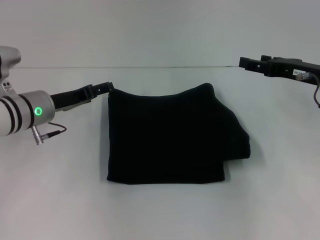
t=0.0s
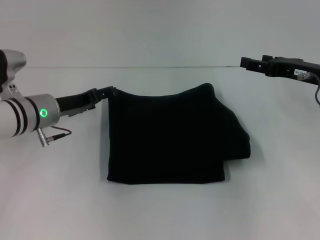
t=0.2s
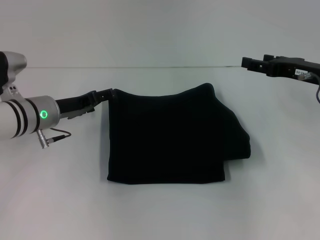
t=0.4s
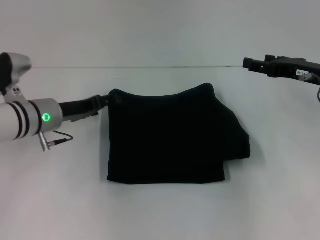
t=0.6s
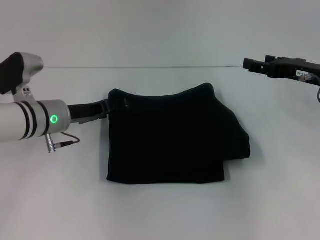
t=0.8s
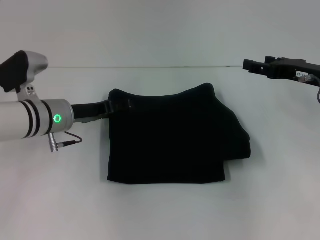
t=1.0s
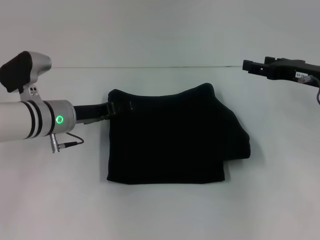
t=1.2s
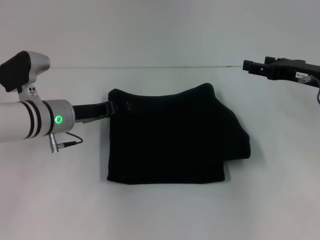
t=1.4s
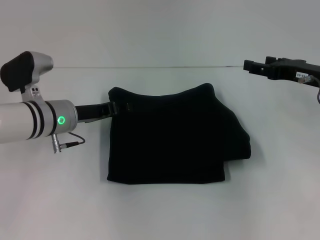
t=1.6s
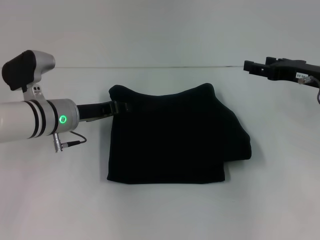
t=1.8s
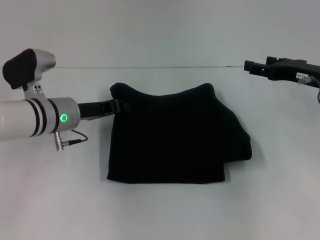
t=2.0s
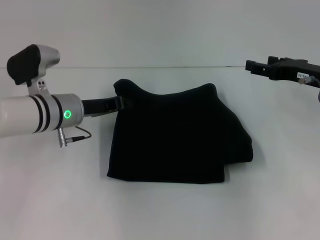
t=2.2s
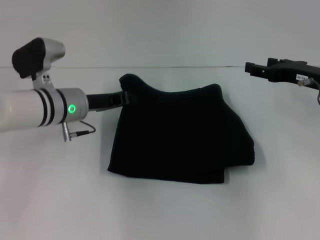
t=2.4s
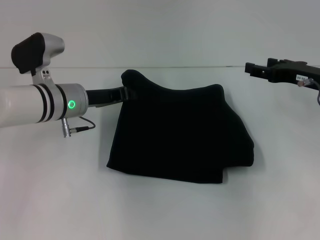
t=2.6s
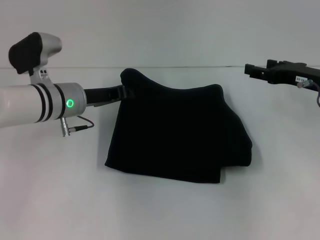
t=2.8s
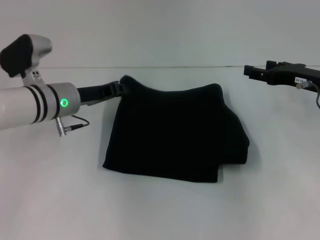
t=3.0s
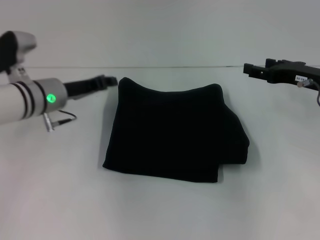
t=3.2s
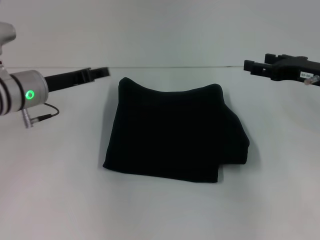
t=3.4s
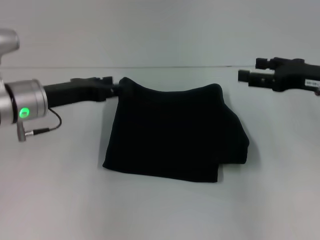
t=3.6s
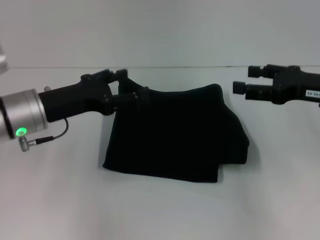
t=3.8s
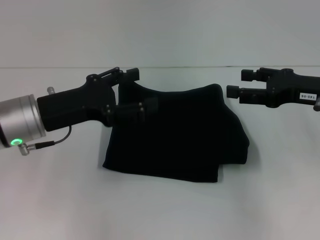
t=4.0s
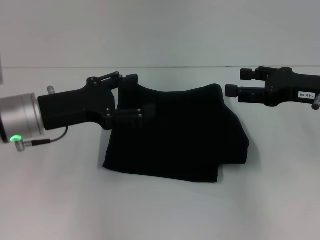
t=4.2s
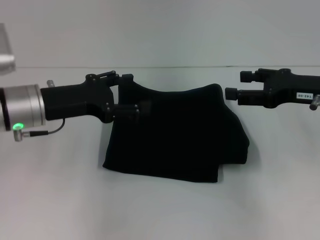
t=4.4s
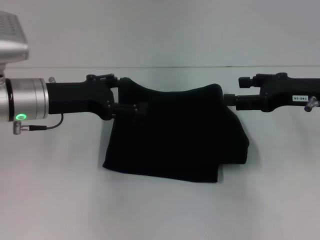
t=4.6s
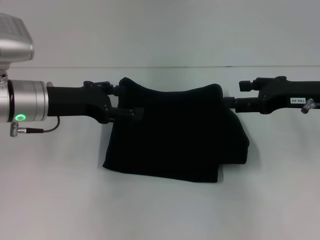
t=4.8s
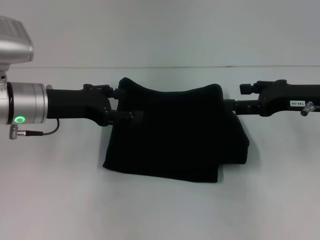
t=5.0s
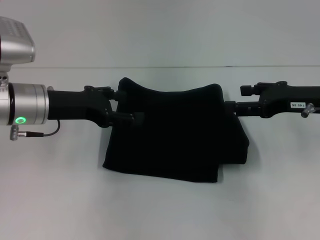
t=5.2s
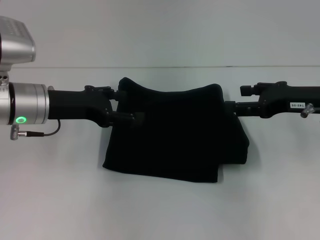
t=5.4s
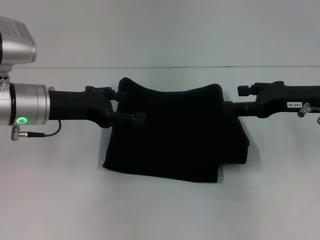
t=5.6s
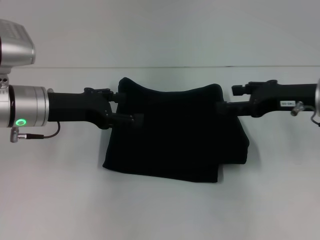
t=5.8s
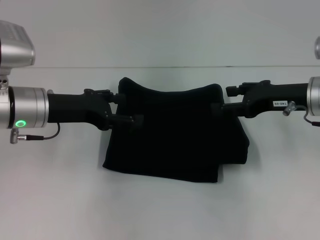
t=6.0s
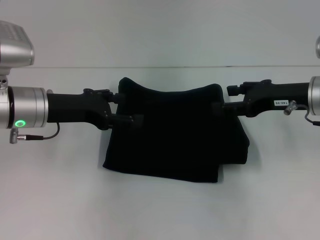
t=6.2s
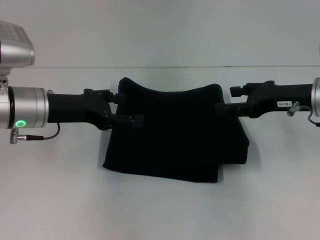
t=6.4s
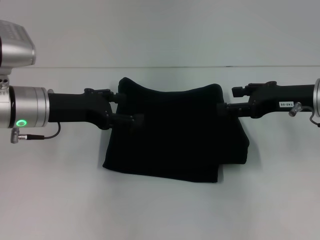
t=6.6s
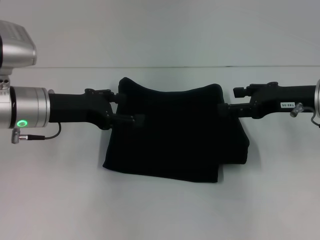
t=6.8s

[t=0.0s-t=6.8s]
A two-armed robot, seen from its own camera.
t=0.0s to t=1.4s: The grippers move only a little.
t=1.4s to t=2.8s: The left gripper closes its fingers.
t=2.8s to t=4.0s: The right gripper ends up some 5 cm from where it was. The left gripper is displaced backward by roughly 10 cm, and opens its fingers.
t=5.4s to t=6.8s: The grippers stay close to where they were, moving slightly.
